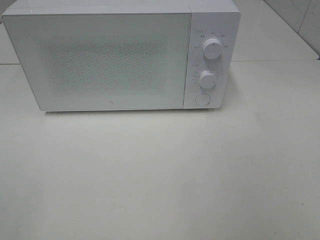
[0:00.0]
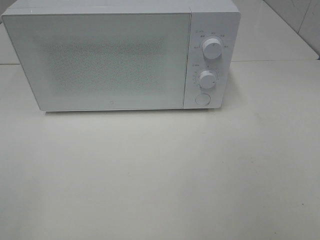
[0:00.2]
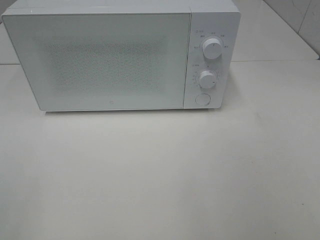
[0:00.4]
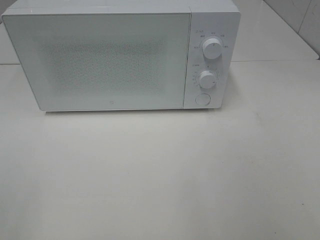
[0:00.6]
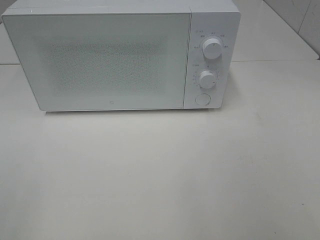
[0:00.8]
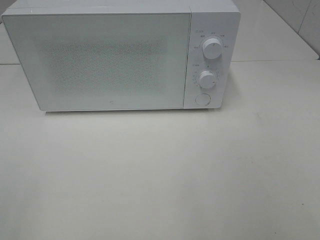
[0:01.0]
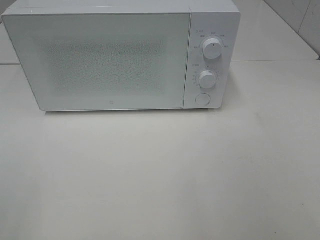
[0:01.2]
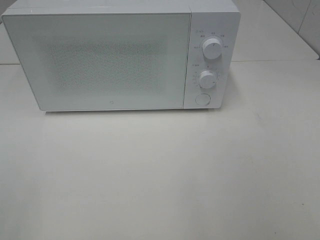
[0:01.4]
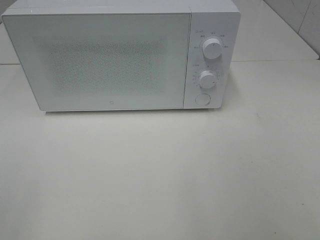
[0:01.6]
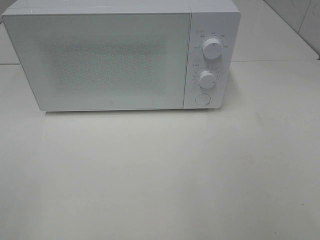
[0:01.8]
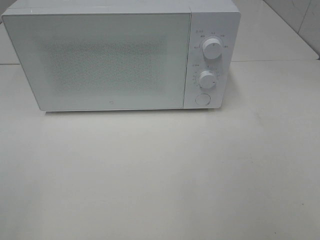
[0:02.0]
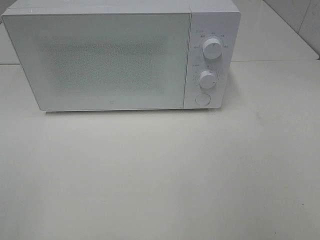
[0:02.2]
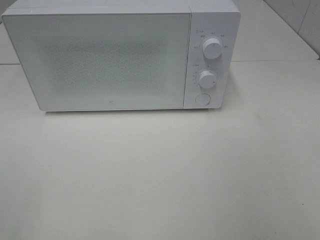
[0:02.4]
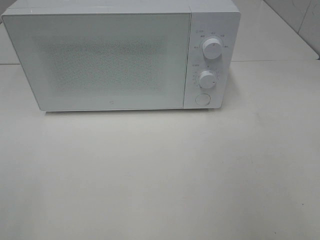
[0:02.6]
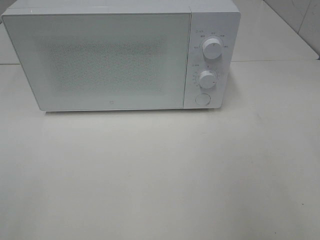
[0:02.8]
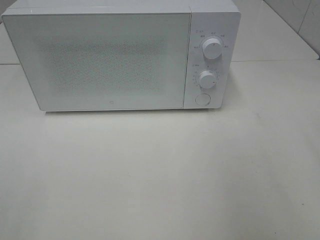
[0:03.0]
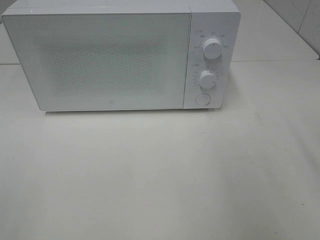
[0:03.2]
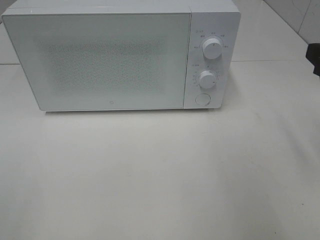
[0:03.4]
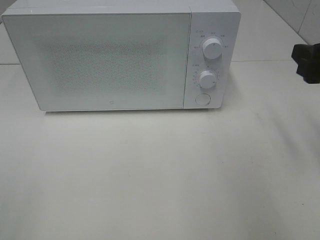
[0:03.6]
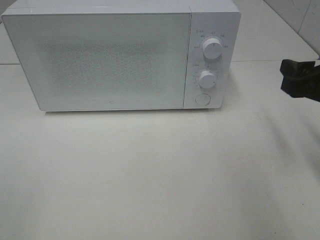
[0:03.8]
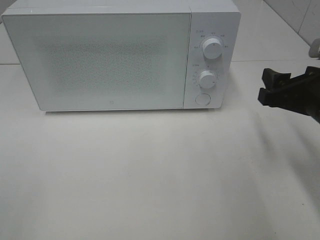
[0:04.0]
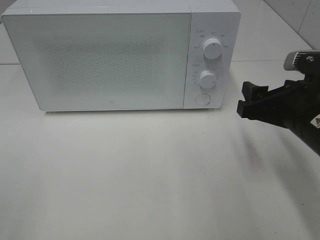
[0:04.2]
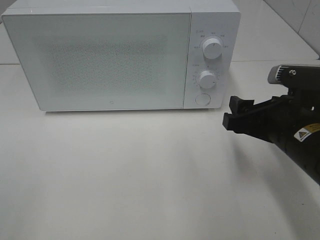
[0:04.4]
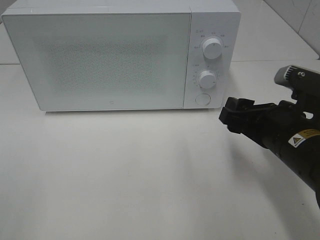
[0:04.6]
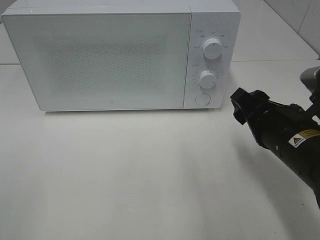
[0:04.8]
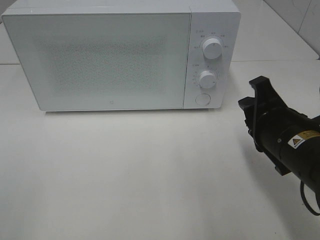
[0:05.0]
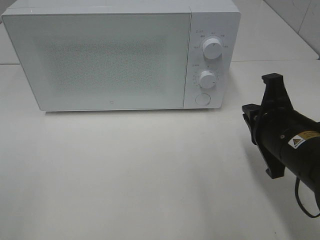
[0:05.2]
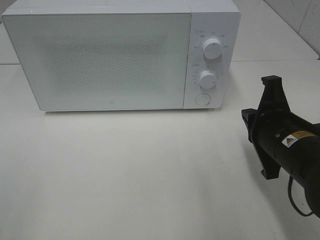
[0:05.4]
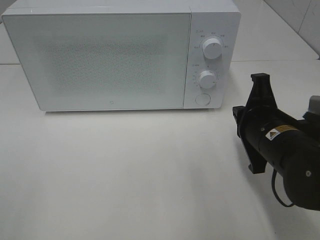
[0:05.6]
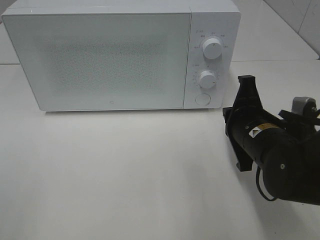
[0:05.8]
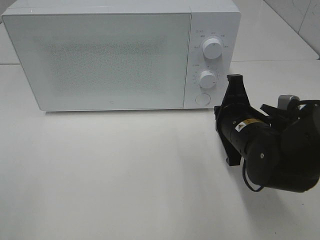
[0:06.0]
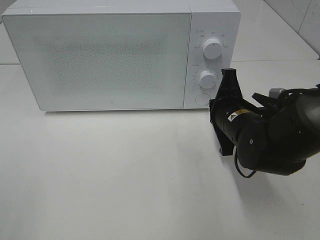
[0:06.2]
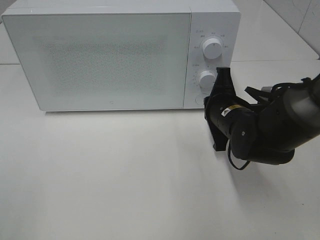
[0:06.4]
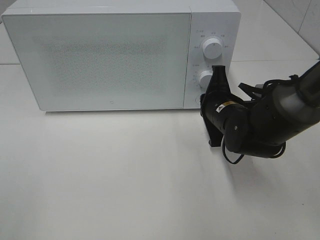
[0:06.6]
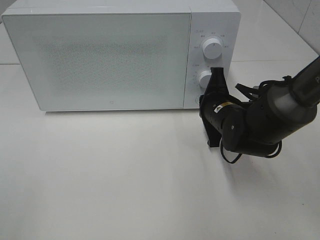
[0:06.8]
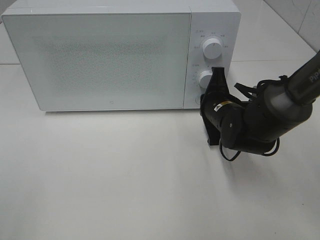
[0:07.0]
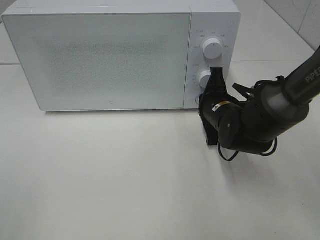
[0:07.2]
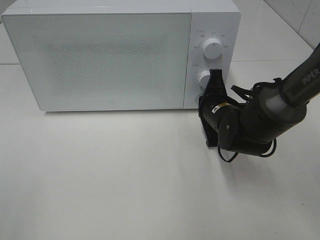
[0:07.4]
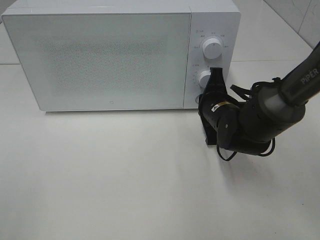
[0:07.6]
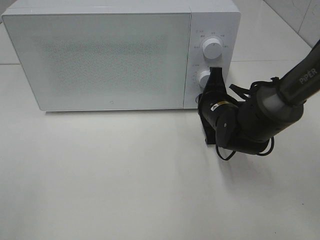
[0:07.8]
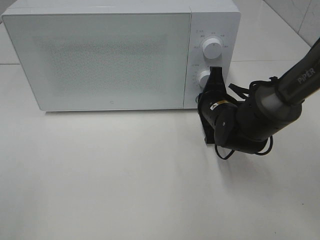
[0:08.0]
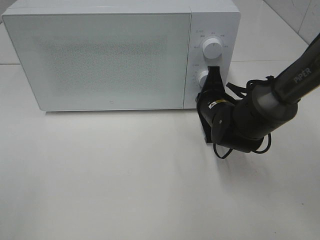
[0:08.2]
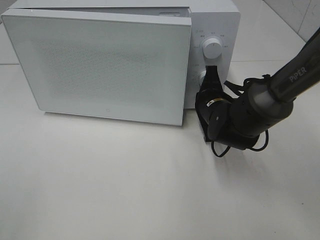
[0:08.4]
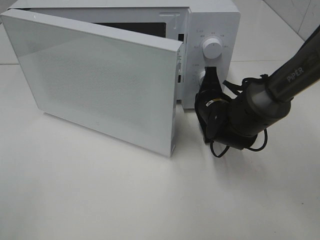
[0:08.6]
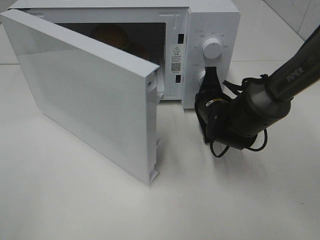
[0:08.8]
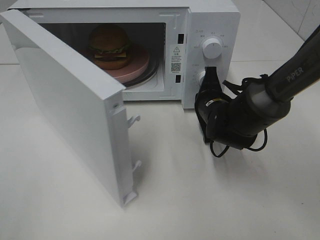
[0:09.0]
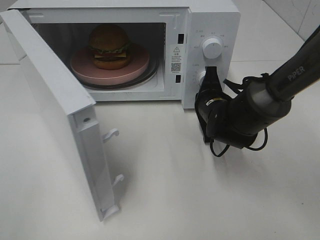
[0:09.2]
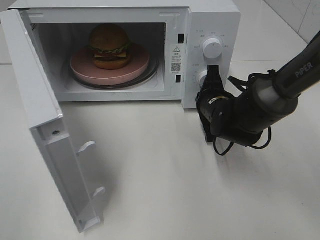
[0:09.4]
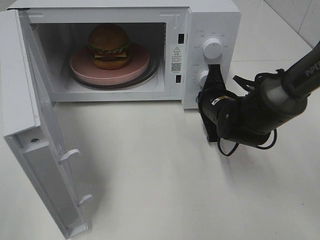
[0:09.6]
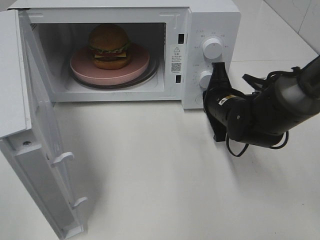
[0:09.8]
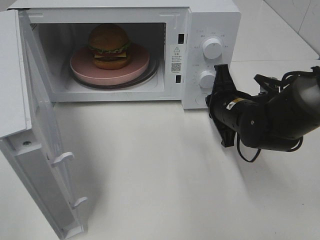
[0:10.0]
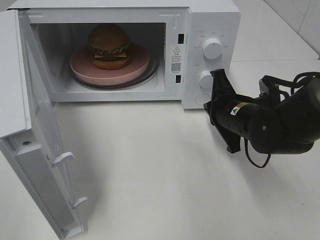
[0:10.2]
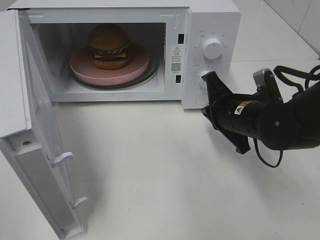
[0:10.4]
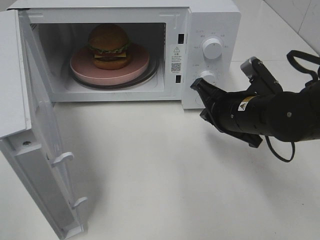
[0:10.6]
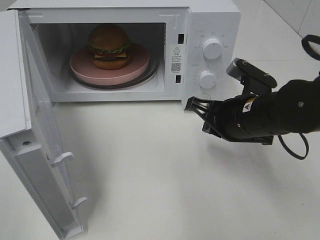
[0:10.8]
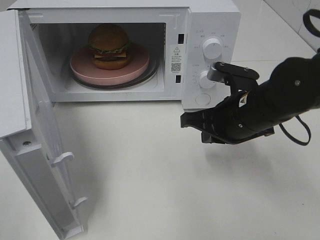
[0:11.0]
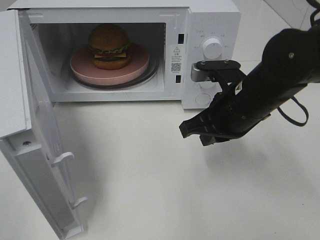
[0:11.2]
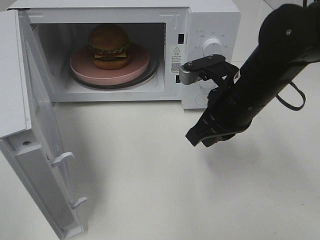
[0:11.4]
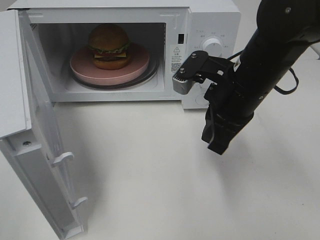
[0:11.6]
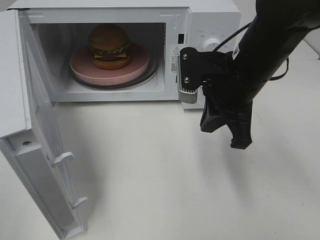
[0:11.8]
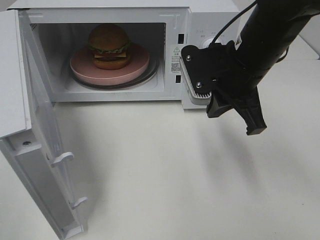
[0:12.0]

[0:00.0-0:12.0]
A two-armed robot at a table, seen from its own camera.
Task of the whole recording: Heat the burger.
Step, 0:00.0 to 0:09.8: Right hand: press the switch.
0:03.0 to 0:04.4: The right gripper is displaced downward, to the left and forward by roughly 20 cm.
0:04.4 to 0:06.0: The right gripper shifts about 5 cm forward, and closes up.
0:06.0 to 0:07.6: The right gripper shifts some 10 cm forward.
0:09.0 to 0:10.4: The right gripper moves backward, roughly 5 cm.
0:10.4 to 0:12.0: The right gripper is displaced upward by approximately 10 cm.

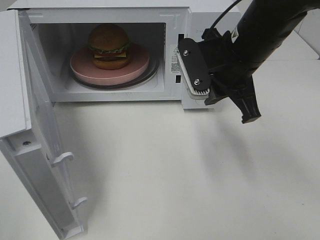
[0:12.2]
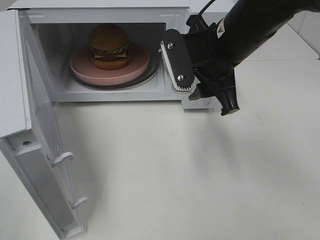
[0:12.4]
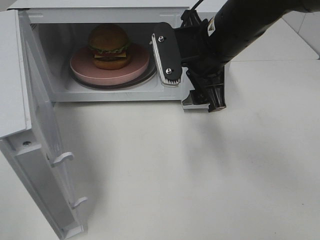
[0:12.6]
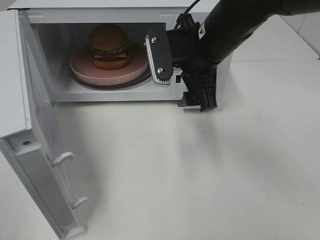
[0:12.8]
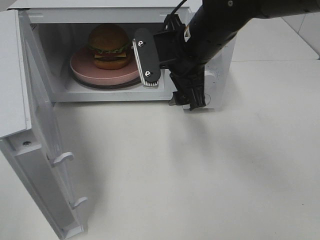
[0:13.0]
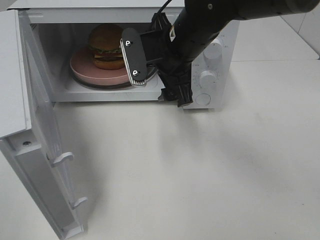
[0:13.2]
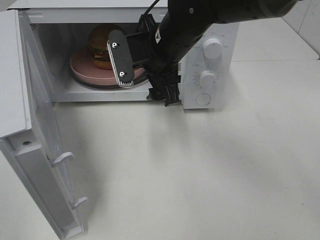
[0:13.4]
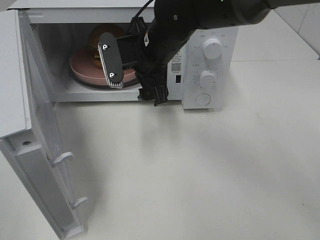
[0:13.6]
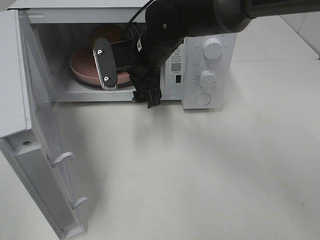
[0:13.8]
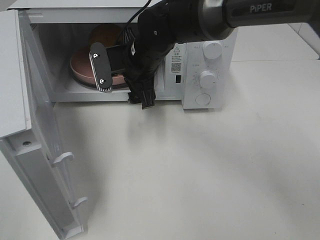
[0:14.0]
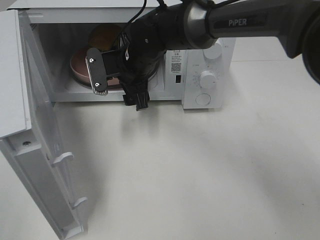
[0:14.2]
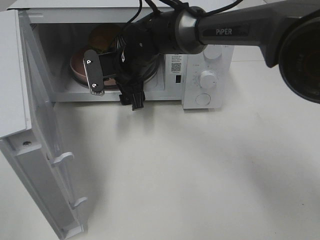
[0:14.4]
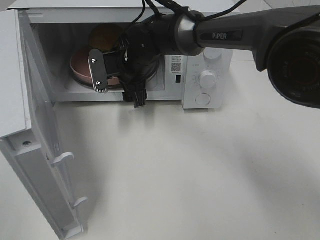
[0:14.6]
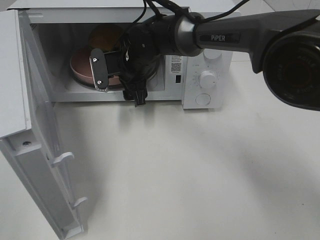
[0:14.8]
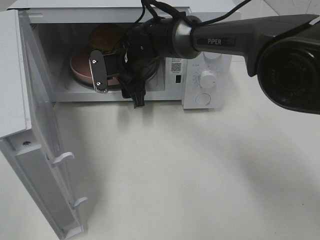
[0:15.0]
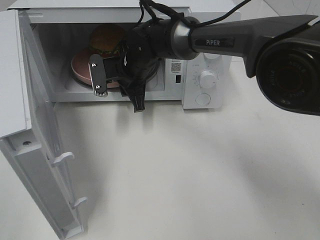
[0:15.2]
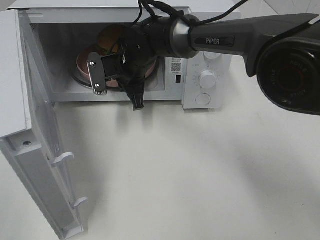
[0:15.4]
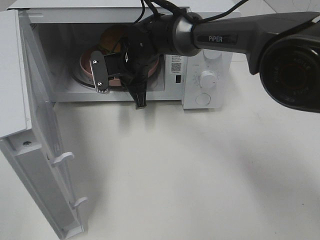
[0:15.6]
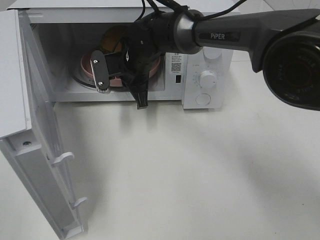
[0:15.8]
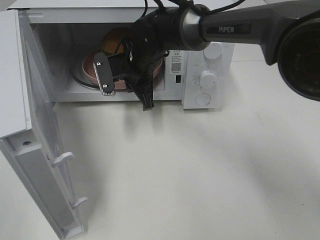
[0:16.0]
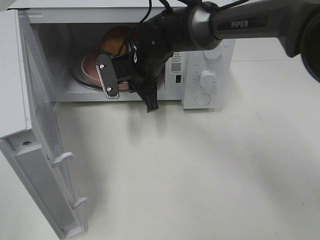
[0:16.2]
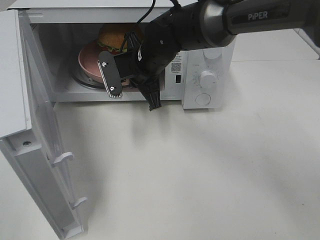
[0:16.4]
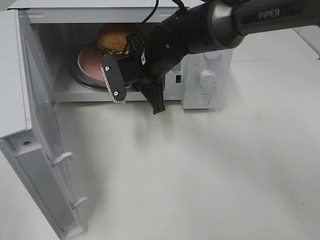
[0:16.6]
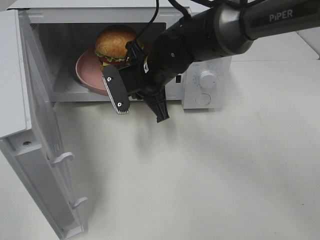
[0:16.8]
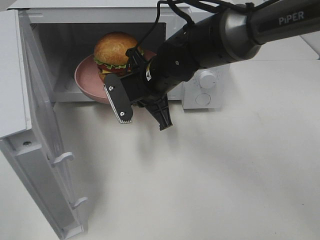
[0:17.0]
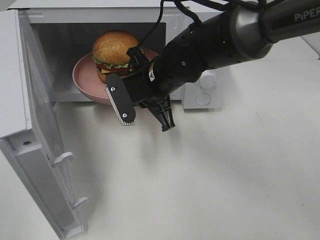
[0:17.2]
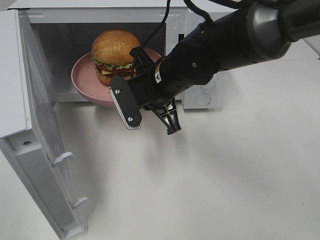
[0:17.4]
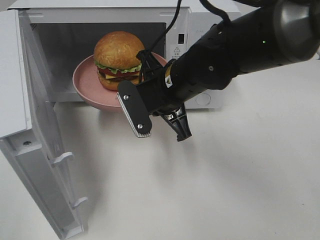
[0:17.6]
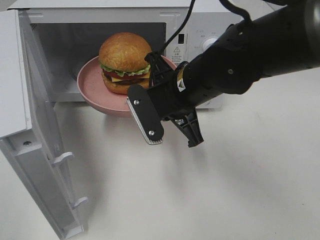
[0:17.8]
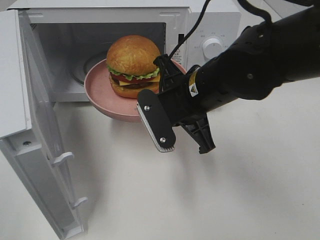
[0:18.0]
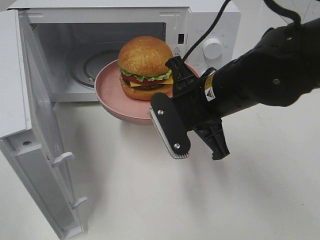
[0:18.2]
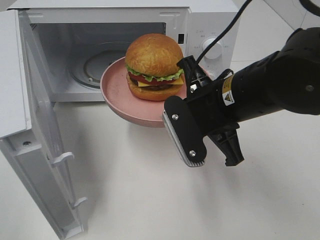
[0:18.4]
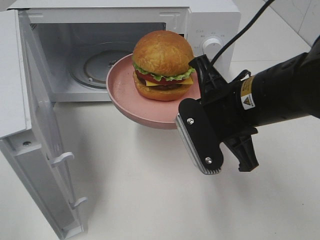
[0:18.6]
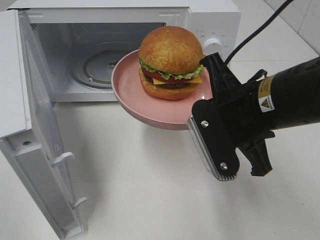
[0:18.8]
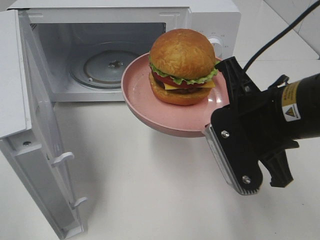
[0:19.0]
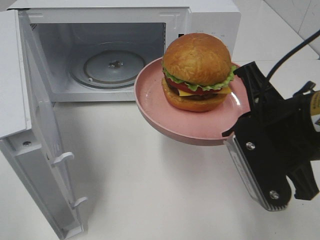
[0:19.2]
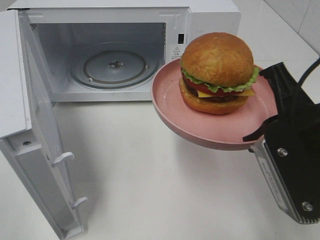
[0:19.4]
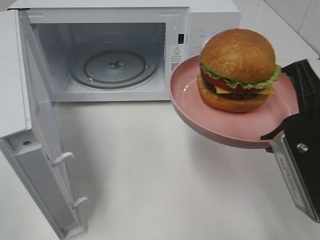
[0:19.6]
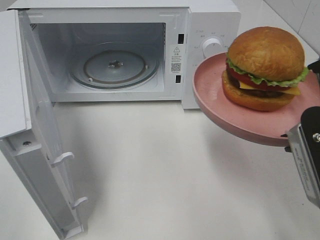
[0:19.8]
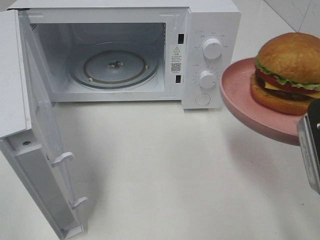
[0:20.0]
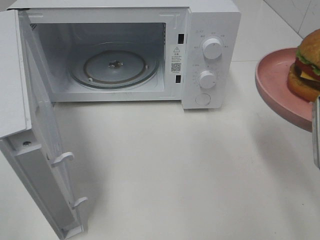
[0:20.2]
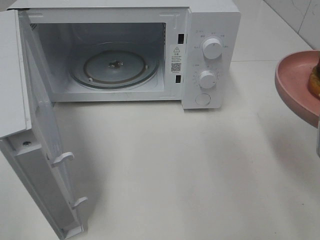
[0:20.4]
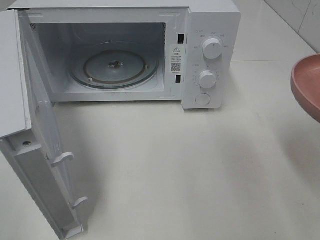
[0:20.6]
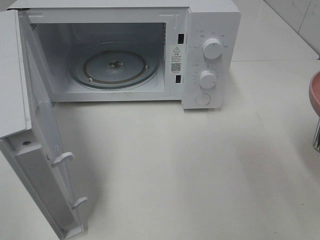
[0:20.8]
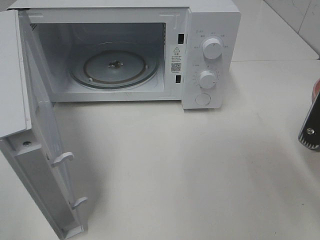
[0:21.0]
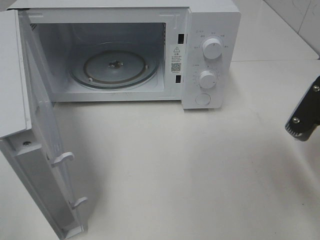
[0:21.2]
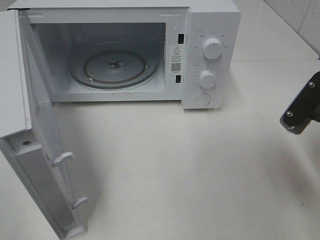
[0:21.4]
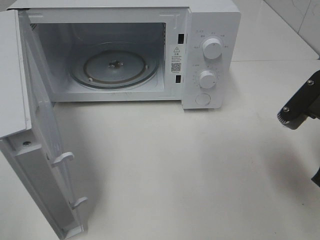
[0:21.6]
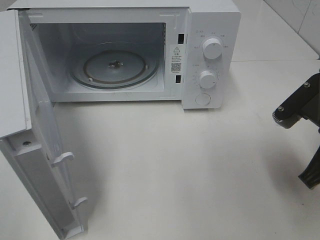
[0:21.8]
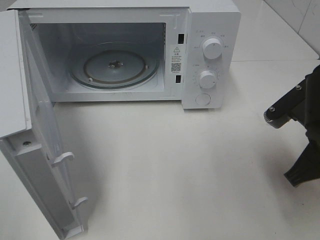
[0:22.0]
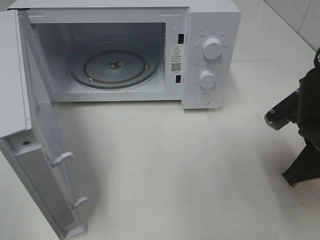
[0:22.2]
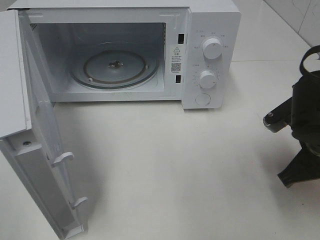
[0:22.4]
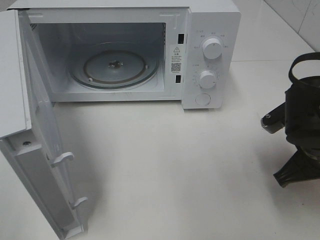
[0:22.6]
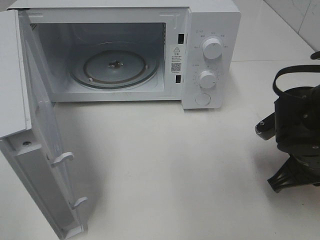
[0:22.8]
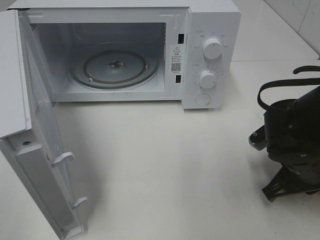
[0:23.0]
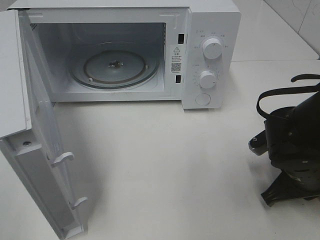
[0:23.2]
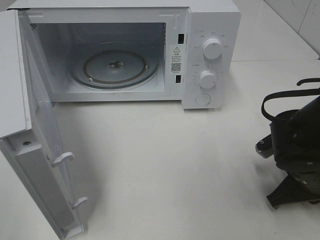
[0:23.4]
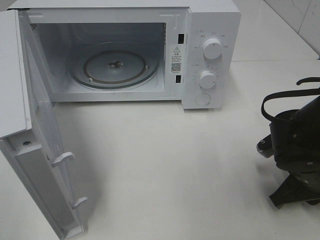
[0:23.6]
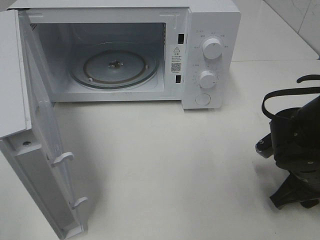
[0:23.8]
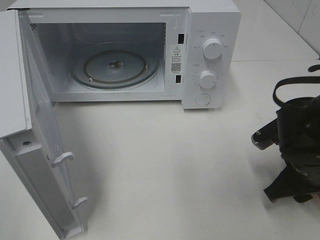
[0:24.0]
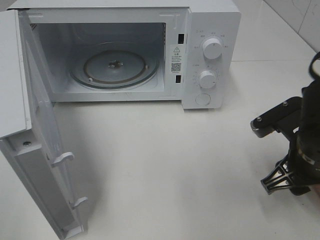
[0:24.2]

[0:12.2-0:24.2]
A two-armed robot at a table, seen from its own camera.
Task of the whole recording: Heat the burger.
Step, 0:12.2 to 0:15.2: Right hand: grab the plate with the hamburger.
Step, 0:15.4 to 0:23.8: Right hand: place the plate on the table.
0:12.2 to 0:13.8: The right gripper is displaced to the left and forward by roughly 15 cm, and opens its fingers.
0:13.8 to 0:15.2: The right gripper heads downward and forward, covering approximately 10 cm, and closes.
0:15.2 to 0:16.6: The right gripper moves approximately 5 cm.
0:16.6 to 0:18.2: The right gripper is displaced backward and to the right by roughly 15 cm.
0:18.2 to 0:19.8: The right gripper moves to the right, backward and upward, about 20 cm.
0:19.8 to 0:21.2: The right gripper ends up about 5 cm from where it was.
0:21.2 to 0:22.6: The right gripper moves downward and forward, approximately 10 cm.
0:22.6 to 0:24.2: The right gripper opens.
